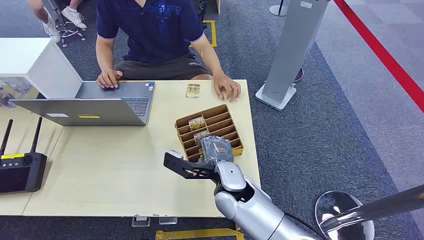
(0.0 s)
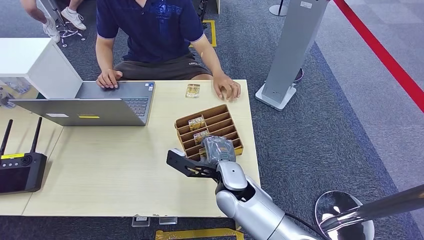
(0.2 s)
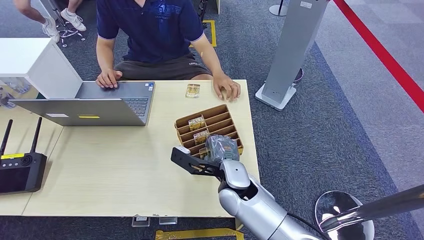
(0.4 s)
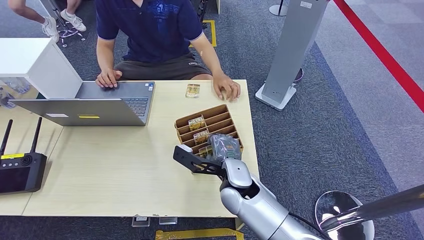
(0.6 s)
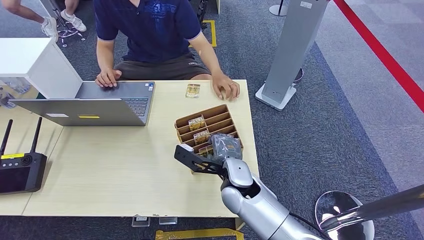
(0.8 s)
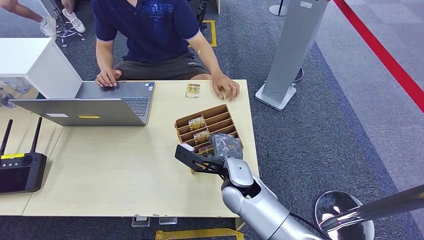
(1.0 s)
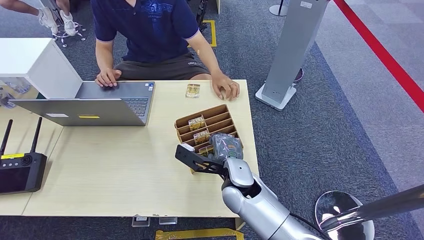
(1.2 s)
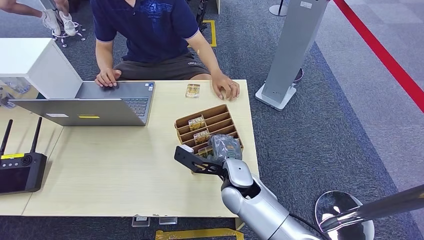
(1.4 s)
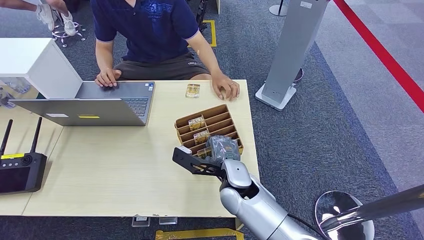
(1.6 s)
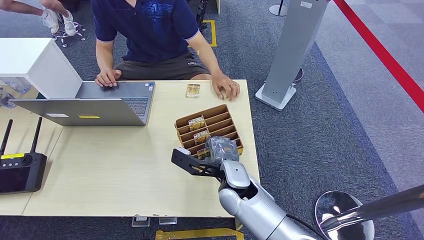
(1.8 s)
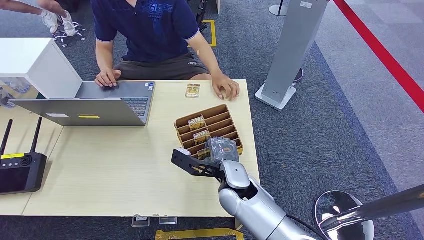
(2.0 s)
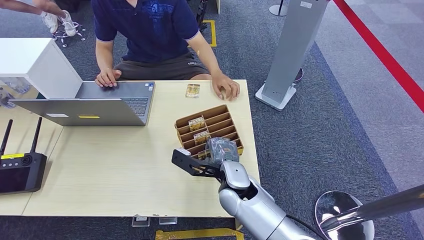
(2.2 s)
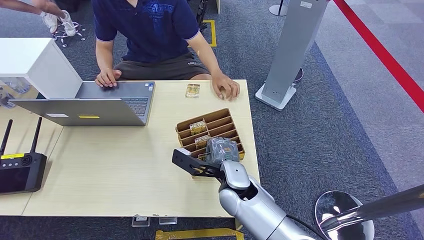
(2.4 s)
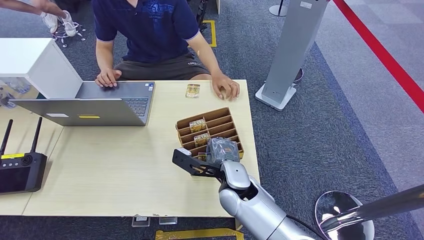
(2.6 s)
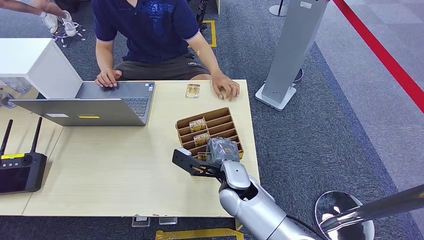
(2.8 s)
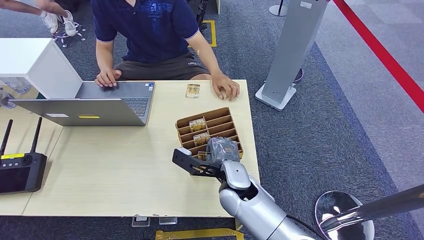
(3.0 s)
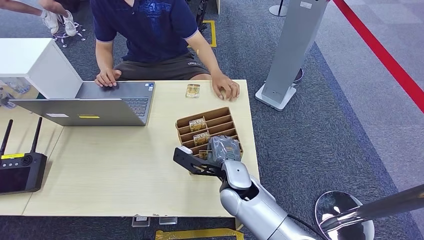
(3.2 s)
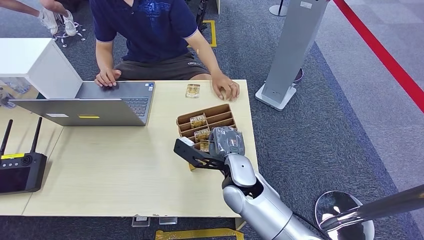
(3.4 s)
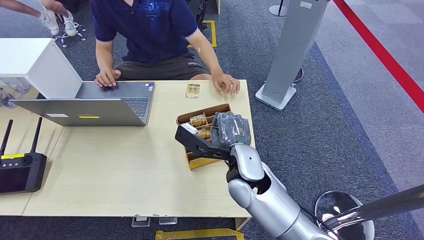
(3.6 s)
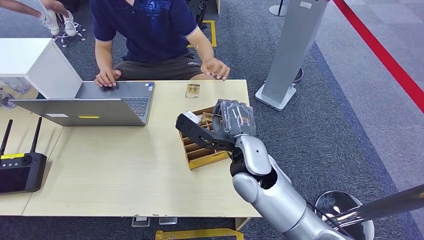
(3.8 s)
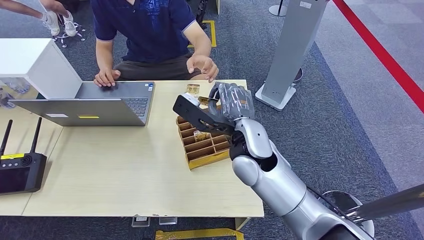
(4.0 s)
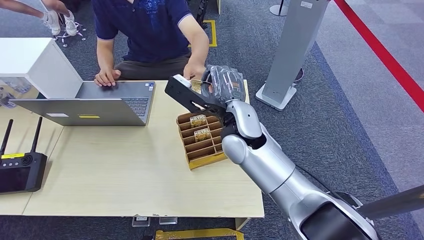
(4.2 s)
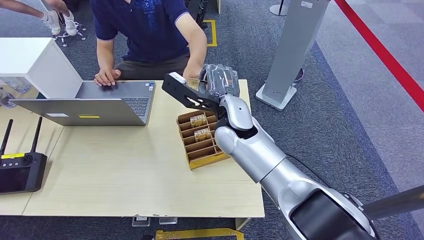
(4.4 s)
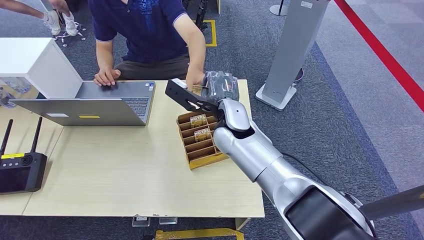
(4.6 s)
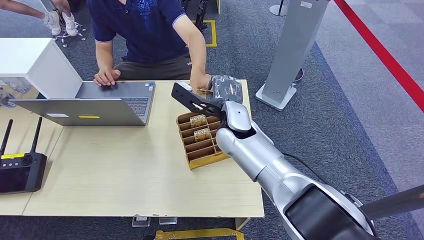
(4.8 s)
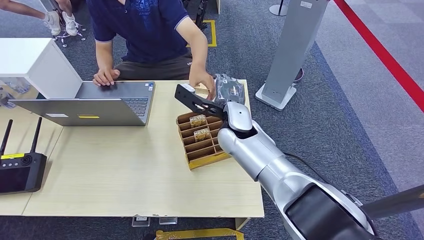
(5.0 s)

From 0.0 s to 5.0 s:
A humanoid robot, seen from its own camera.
Step, from 0.0 s to 3.6 s: Pick up the room card from the card holder.
Step, from 4.0 s to 5.0 s: Hand the room card to the target.
From 1.6 s to 3.4 s: The hands make only small movements.
From 3.4 s to 5.0 s: The right hand goes roughly 15 cm forward and upward.
